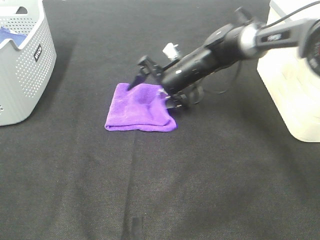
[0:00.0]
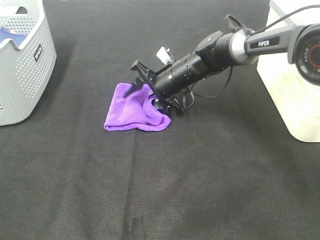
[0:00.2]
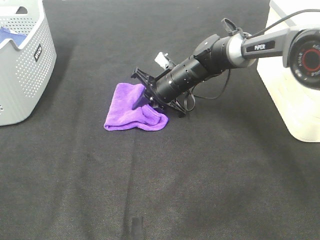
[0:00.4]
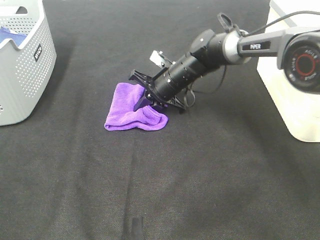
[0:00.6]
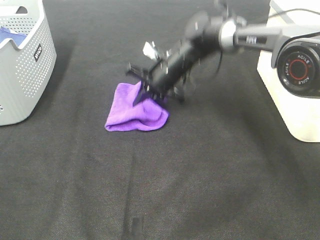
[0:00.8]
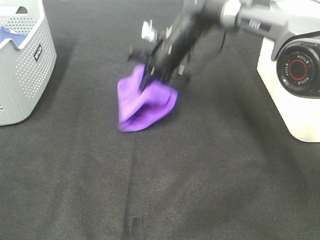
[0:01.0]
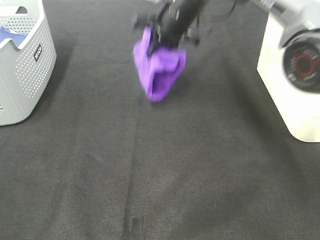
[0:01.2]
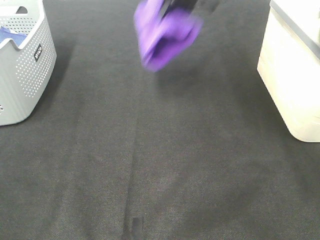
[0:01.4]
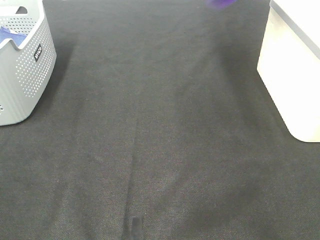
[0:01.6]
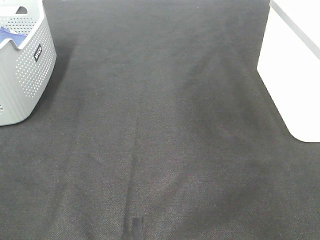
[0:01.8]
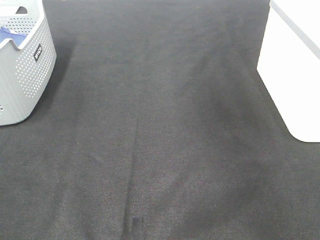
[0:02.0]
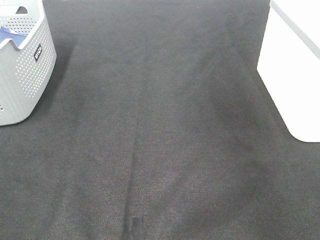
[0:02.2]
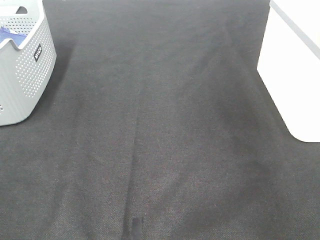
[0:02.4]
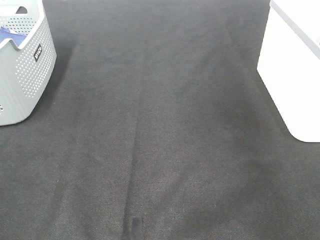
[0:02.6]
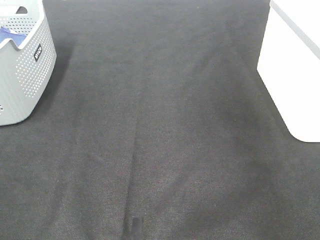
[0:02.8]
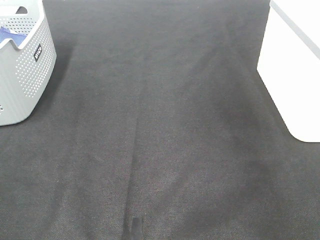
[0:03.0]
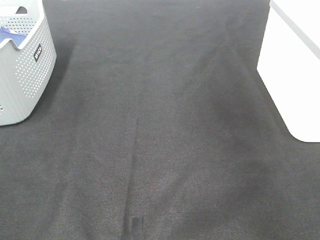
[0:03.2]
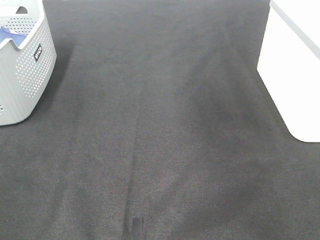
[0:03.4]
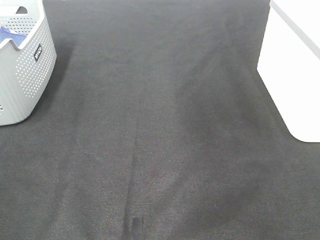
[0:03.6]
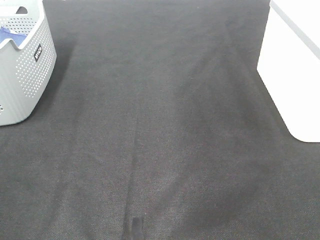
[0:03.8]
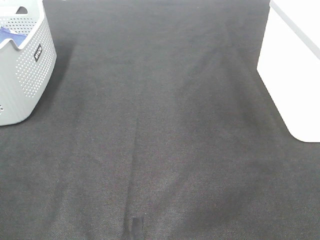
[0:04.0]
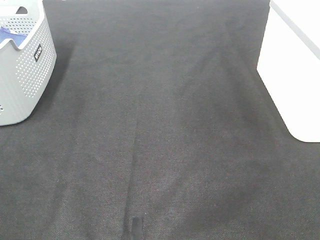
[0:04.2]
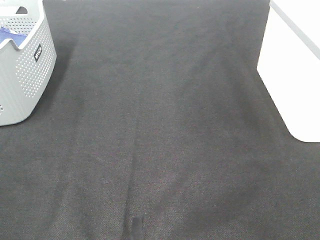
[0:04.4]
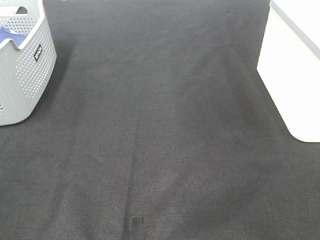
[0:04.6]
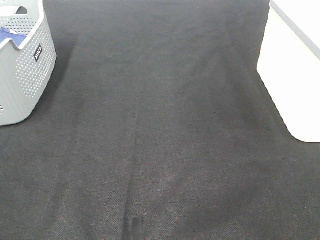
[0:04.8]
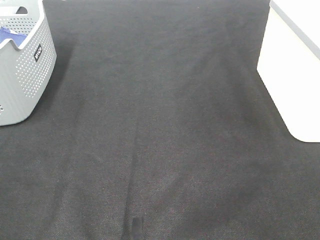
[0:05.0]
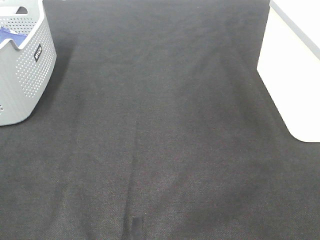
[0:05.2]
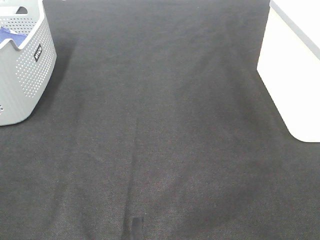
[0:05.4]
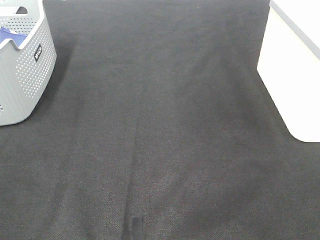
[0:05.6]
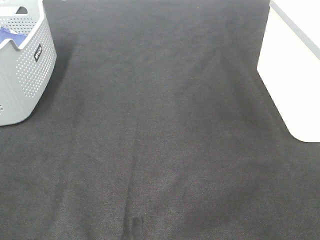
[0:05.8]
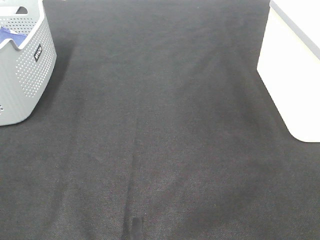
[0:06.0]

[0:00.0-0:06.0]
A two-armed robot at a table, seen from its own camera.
Step, 0:00.6 to 0:02.6: Right hand: place the purple towel in right basket.
0:00.0 to 0:01.6: The right gripper shifts approximately 40 cm upward and to the right, and closes.
0:01.6 to 0:03.0: The right gripper heads to the right, covering some 15 cm, and opens its fingers.

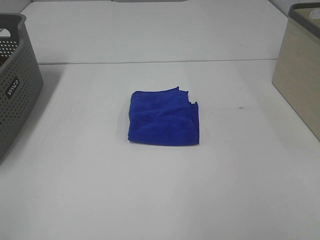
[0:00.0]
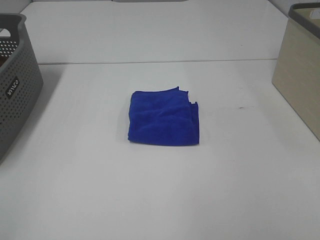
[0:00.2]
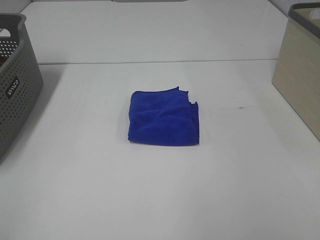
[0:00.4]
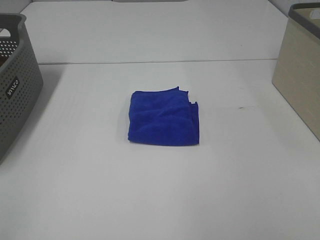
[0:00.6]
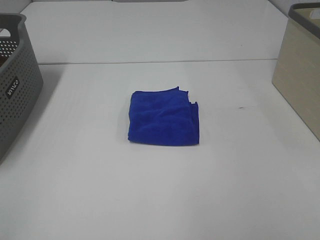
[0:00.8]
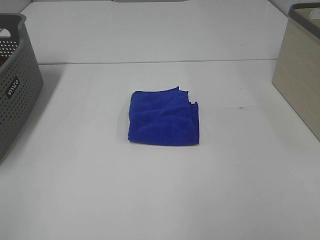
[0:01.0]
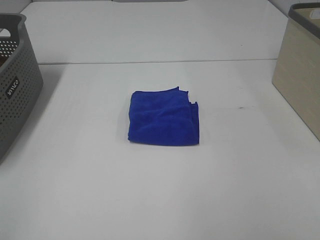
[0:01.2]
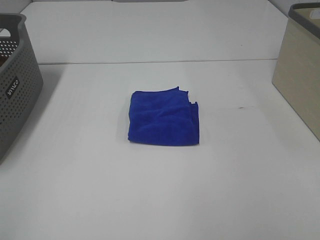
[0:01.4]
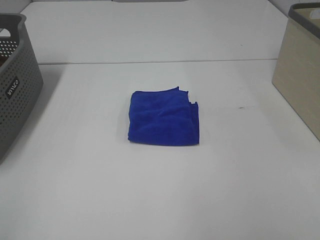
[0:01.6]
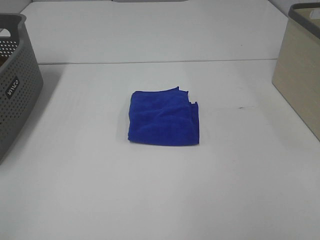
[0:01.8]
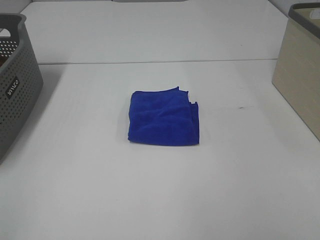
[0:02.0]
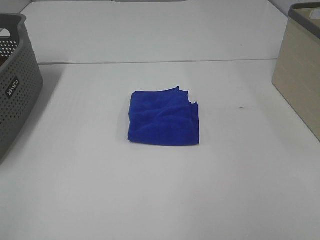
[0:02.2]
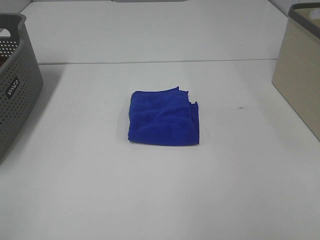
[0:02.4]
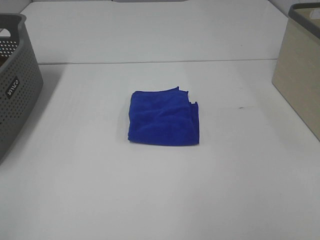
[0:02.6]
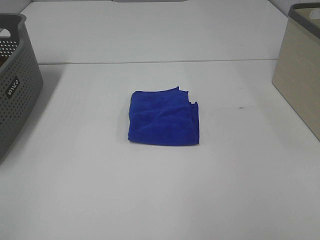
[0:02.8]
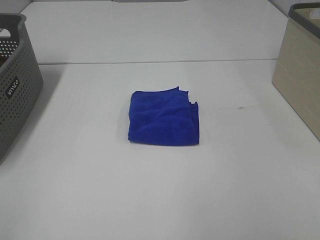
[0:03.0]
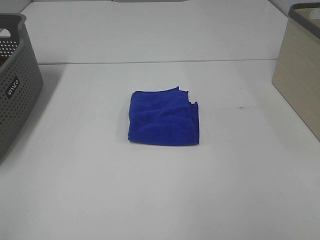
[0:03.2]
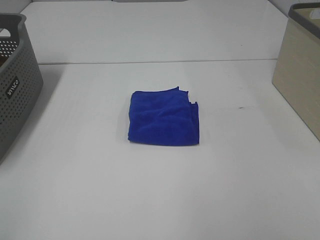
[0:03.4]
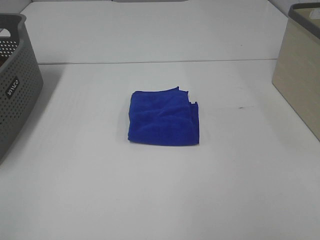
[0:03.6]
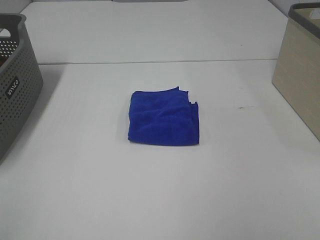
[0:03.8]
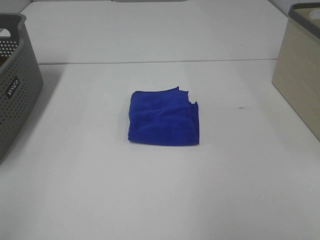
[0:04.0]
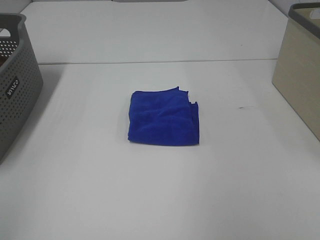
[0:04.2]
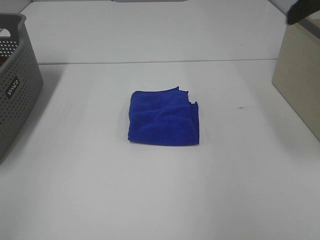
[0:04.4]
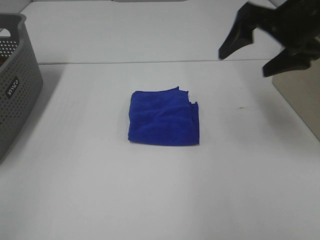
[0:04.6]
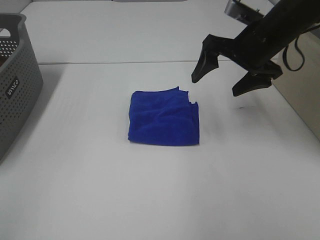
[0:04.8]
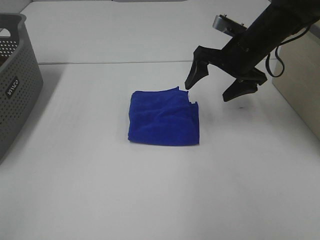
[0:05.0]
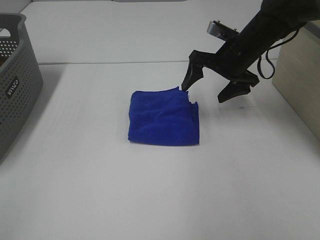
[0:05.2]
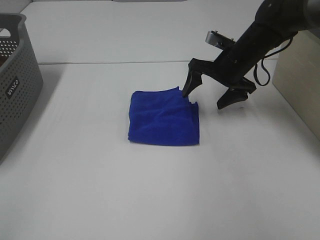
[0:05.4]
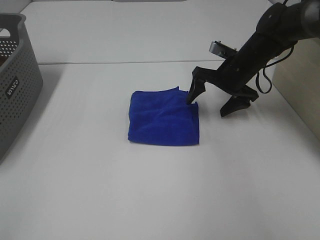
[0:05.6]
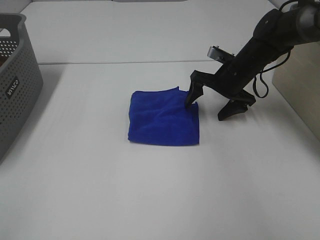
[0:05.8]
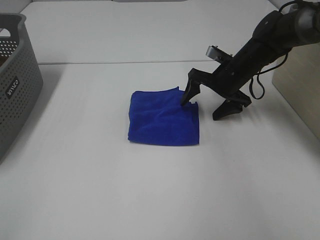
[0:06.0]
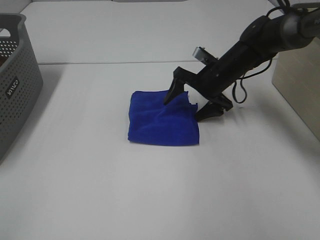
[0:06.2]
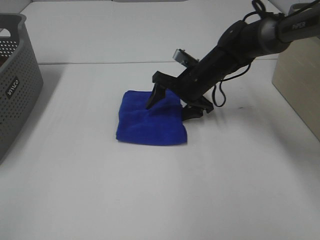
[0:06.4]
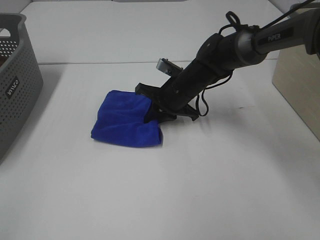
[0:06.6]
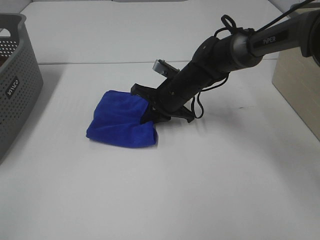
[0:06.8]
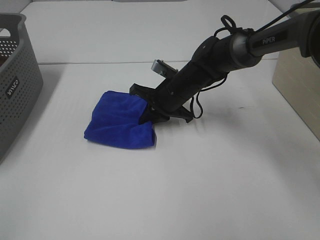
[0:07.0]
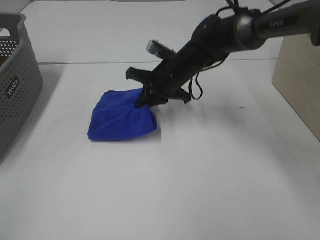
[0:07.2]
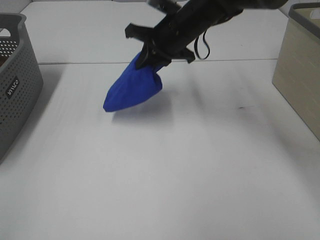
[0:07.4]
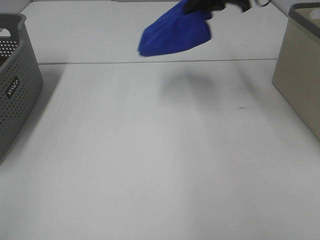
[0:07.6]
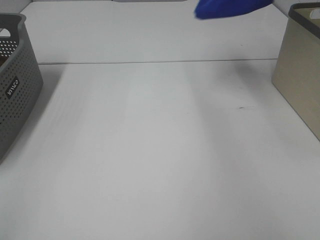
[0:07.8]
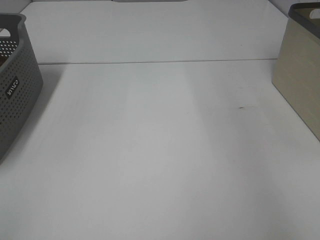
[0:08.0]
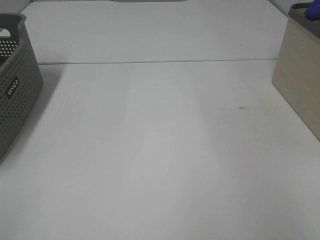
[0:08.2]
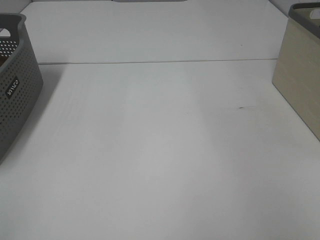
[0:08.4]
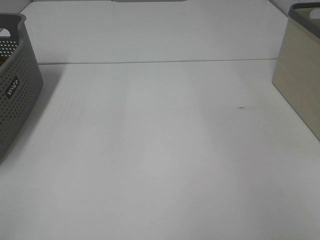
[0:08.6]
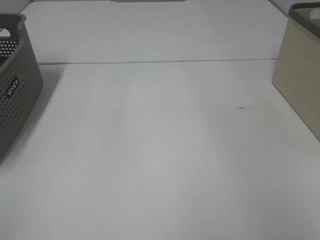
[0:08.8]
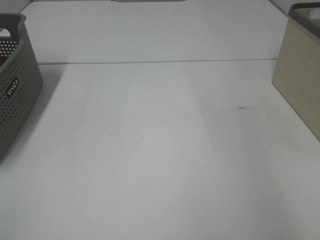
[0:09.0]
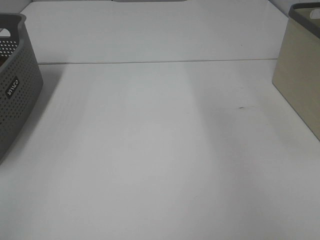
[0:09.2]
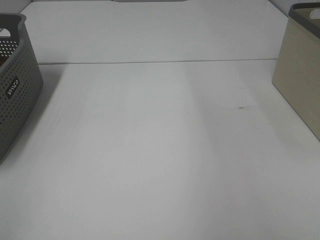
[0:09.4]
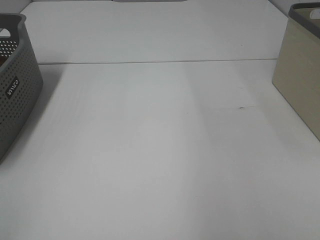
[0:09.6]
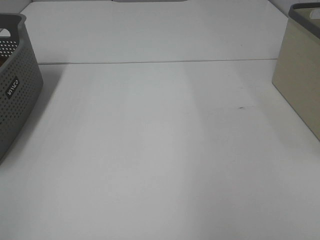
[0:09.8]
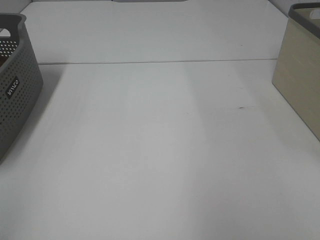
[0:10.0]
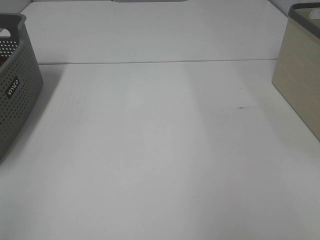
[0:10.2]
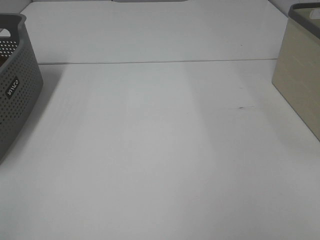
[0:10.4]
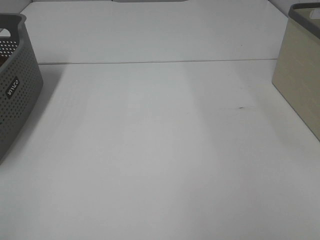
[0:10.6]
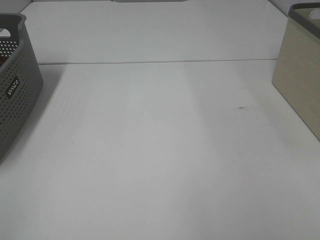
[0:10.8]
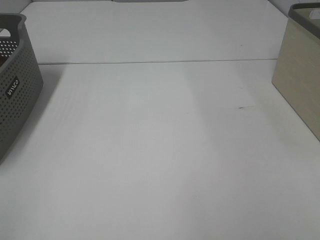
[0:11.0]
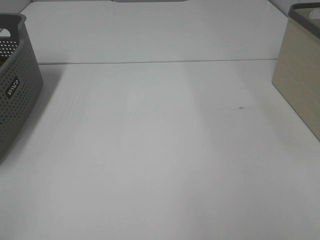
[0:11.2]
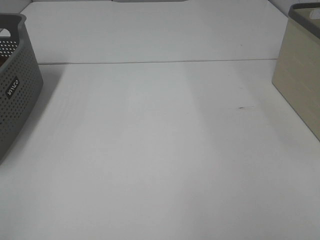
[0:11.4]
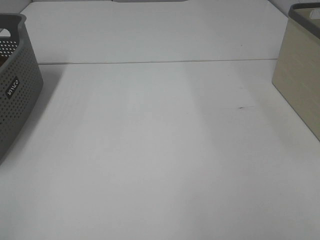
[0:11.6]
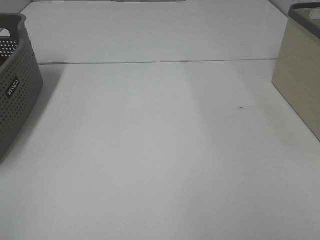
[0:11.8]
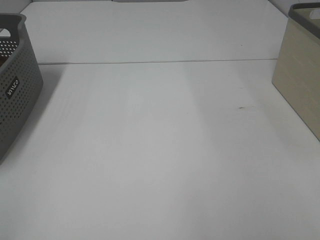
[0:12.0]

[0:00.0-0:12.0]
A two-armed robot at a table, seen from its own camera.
Step, 0:00.0 to 0:06.8: Right hand: grab the folded blue towel.
Step, 0:07.0 to 0:08.8: Right hand: place the blue towel in right basket.
0:01.6 to 0:03.0: The two grippers keep their place.
0:03.0 to 0:04.4: The right gripper is displaced forward by roughly 25 cm.
0:04.4 to 0:06.0: The right gripper heads downward, forward and to the left, covering roughly 35 cm.
0:06.0 to 0:07.6: The right gripper travels upward and to the left by roughly 20 cm, and closes its fingers.
0:07.6 to 0:09.0: The right gripper moves to the right, some 35 cm, and opens.

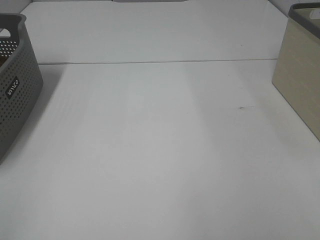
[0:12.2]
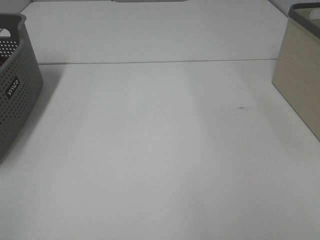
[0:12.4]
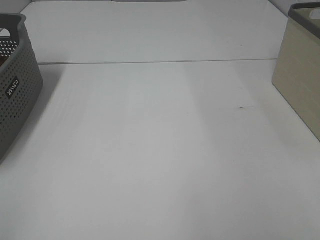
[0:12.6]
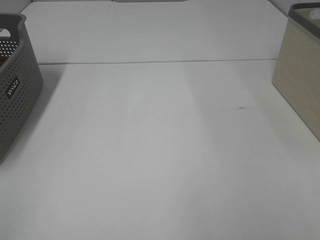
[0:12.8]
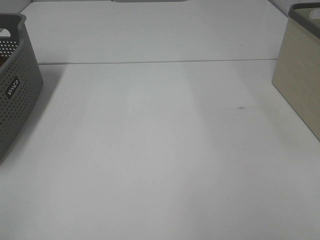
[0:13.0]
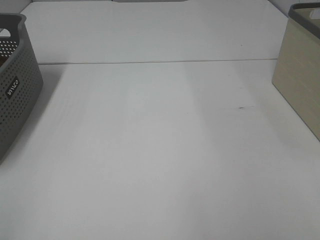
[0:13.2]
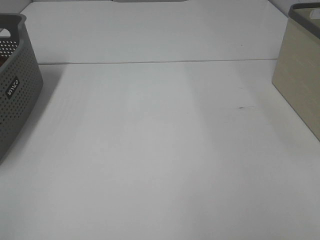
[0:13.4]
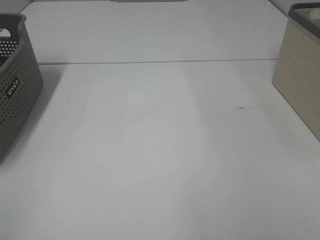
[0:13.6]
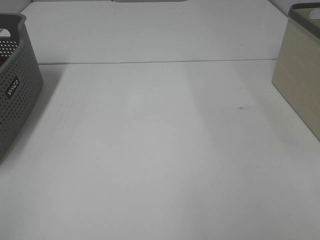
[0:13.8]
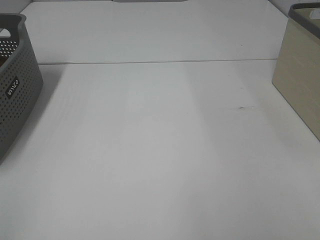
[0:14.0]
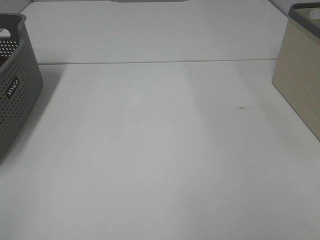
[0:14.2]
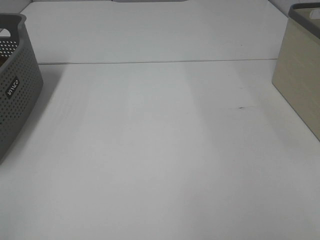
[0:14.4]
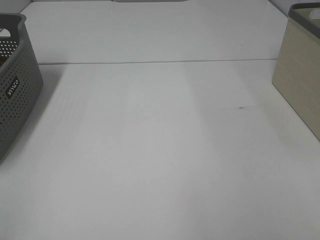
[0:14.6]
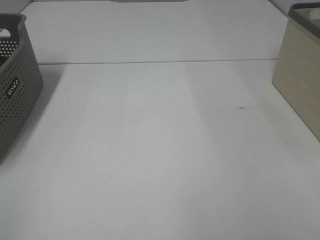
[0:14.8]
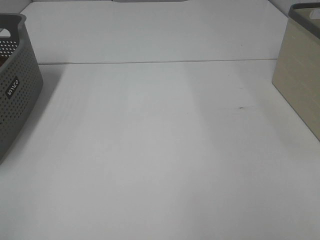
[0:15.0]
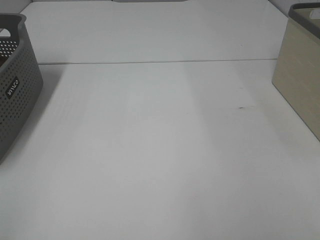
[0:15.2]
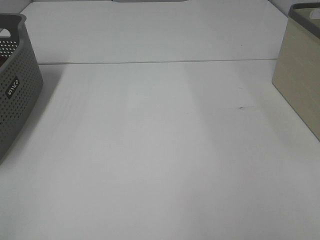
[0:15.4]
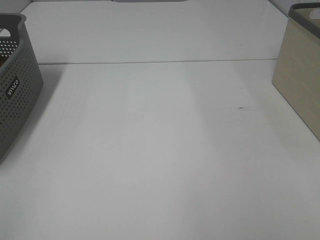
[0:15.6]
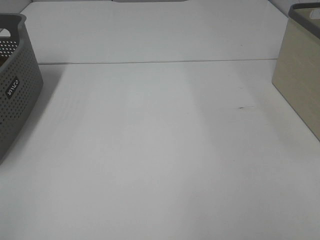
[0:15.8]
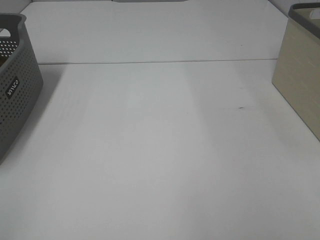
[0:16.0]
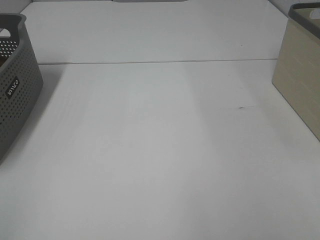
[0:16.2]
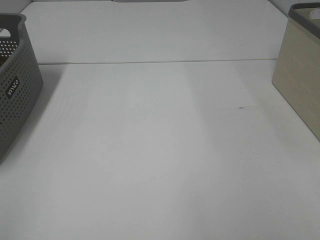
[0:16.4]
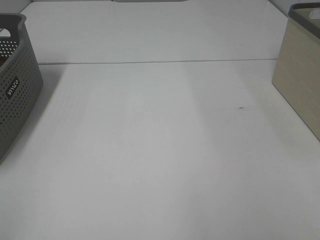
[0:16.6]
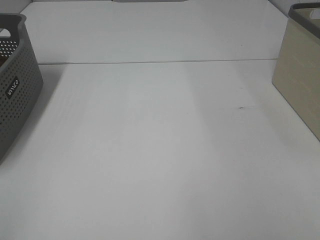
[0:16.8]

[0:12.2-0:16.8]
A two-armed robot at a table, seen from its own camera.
0:12.2 to 0:16.8: Neither gripper changes place.
